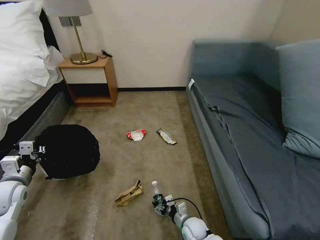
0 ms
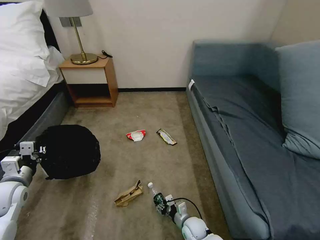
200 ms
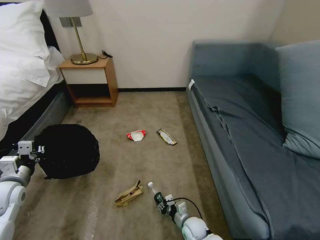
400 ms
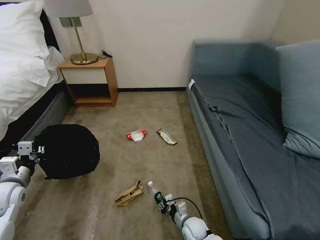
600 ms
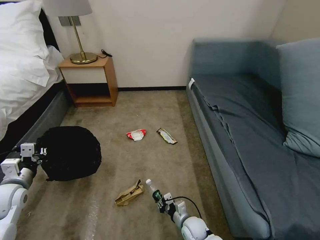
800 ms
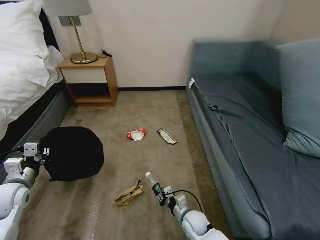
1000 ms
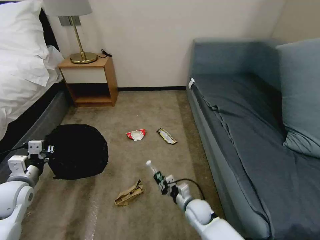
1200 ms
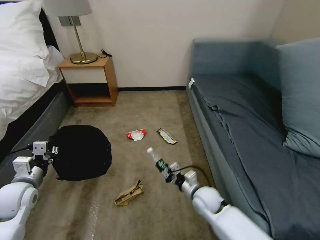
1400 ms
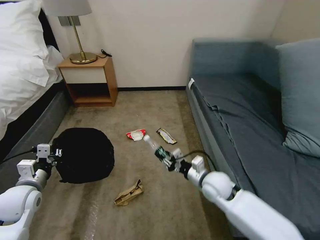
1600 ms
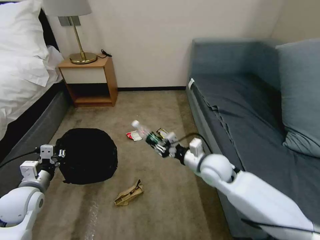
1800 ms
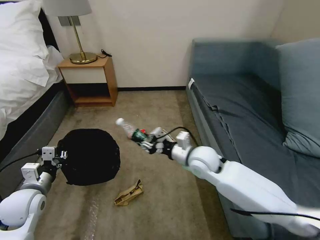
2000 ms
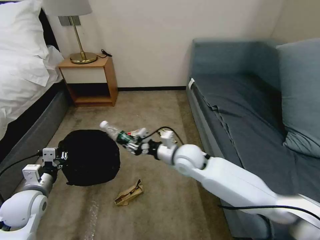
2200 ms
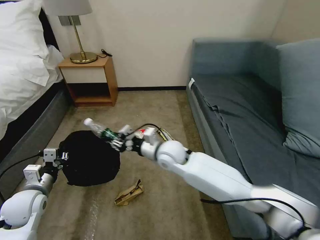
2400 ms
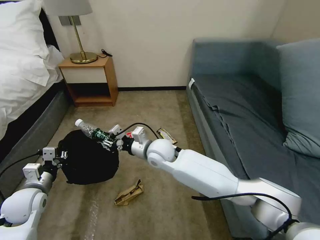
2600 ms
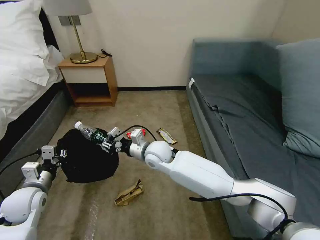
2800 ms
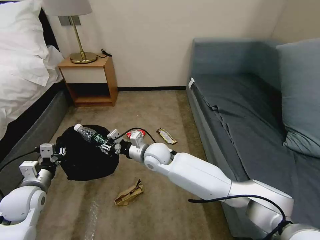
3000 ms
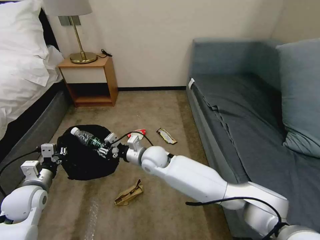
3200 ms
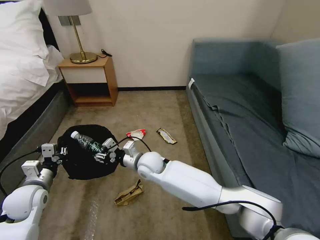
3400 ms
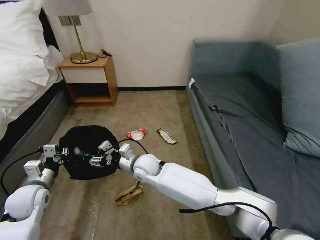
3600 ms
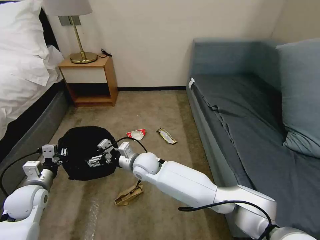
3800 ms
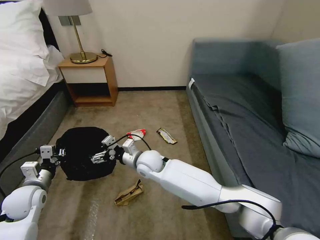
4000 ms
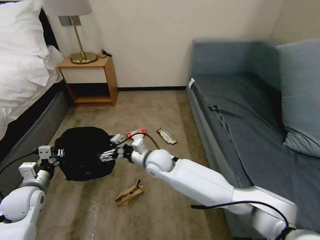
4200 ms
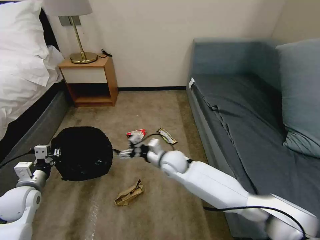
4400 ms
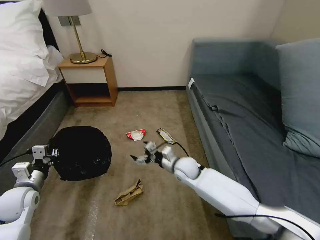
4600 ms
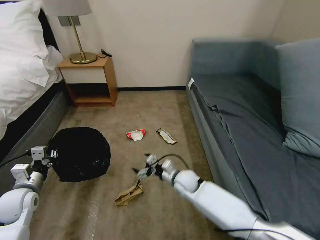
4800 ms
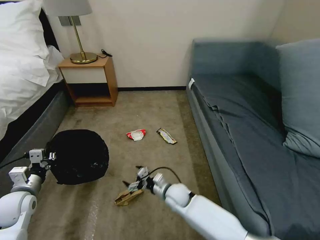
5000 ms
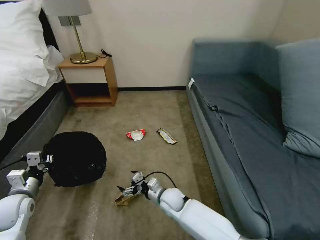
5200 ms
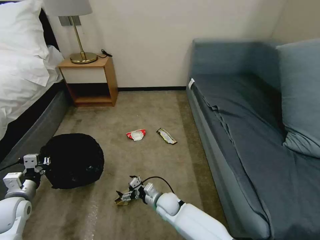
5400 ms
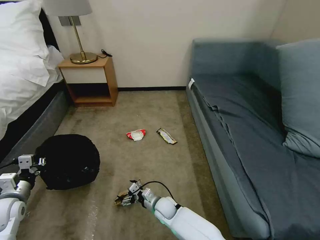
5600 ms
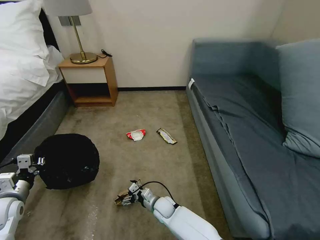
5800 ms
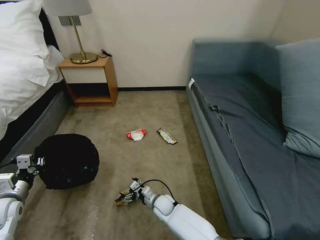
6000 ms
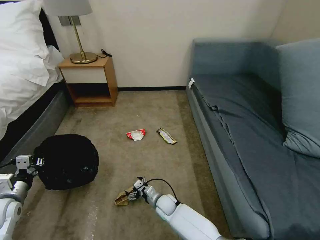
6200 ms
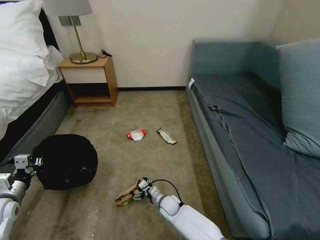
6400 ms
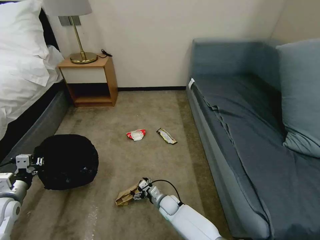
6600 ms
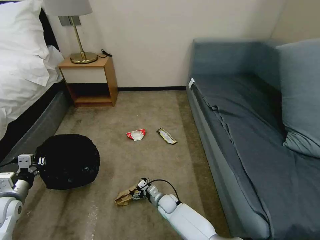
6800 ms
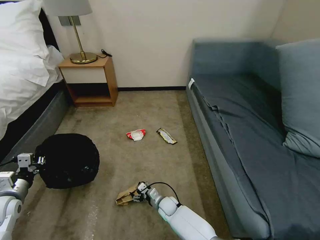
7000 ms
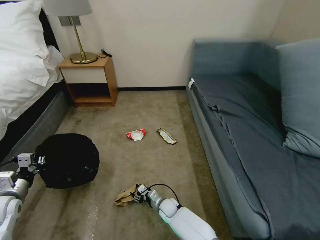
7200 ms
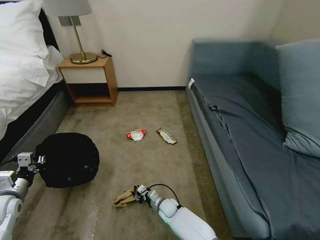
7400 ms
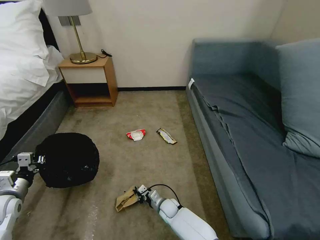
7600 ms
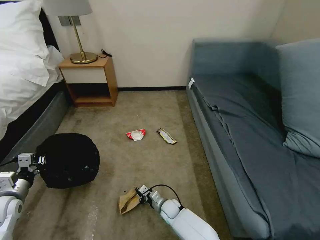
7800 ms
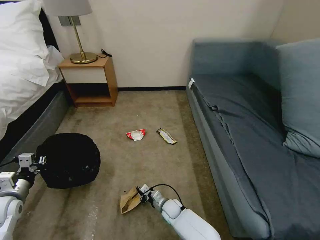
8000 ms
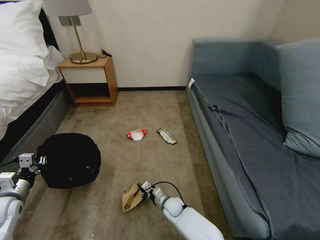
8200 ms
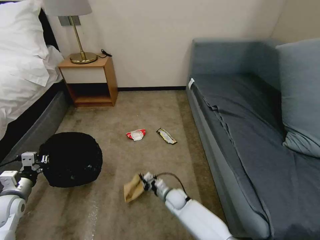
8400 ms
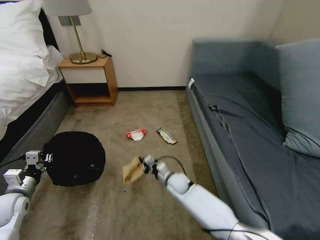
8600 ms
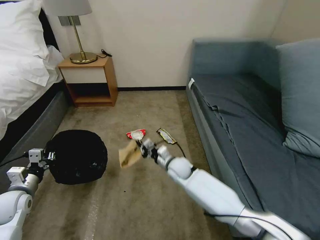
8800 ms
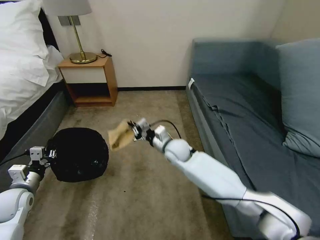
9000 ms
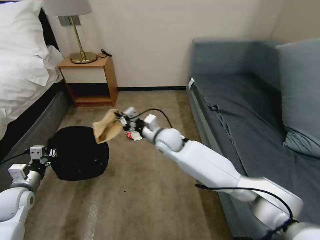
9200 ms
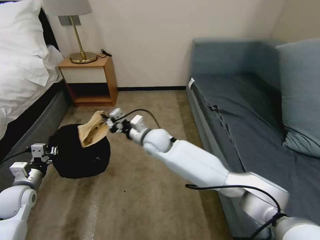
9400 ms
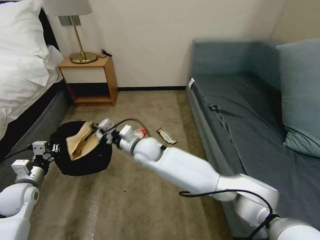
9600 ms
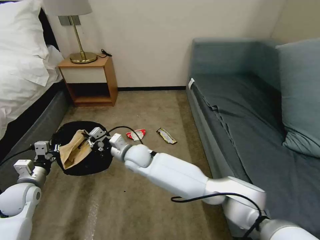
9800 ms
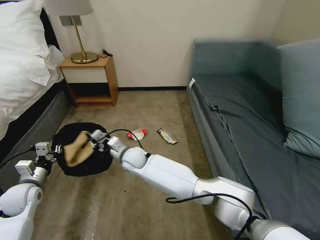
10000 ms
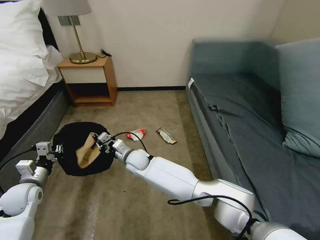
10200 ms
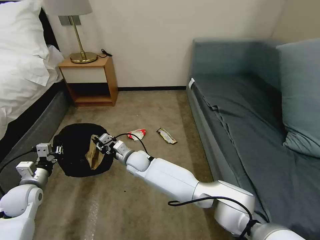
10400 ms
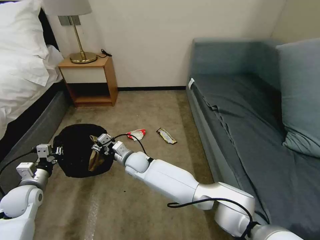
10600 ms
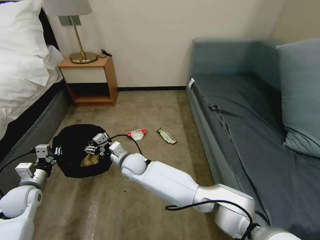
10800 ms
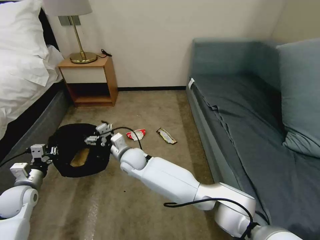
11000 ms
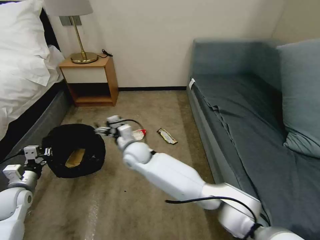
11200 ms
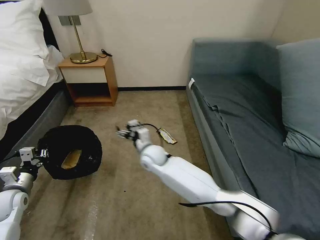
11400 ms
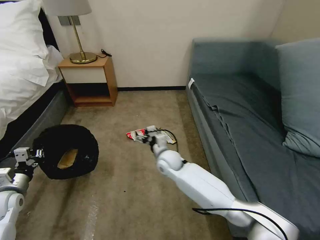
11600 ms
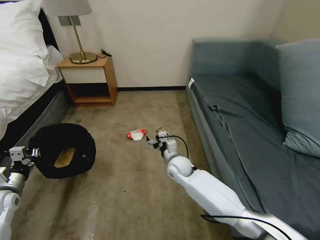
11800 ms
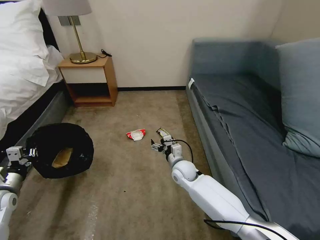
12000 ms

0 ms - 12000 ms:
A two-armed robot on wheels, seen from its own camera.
Task of the whole recording: Pick up the trash bin, then pick up the garbage on the floor and place it into the trash bin.
0 ms - 1600 ms: The left gripper heads to the right, covering about 5 cm. The right gripper goes about 25 cm upward and forward, and closes up.
1600 ms - 3000 ms: The right gripper moves to the left and forward, about 20 cm.
3000 ms - 4400 ms: The right gripper travels to the right by approximately 5 cm, and opens.
4400 ms - 6000 ms: The left gripper moves to the left, about 5 cm; the right gripper moves downward, some 25 cm.
6000 ms - 7600 ms: The right gripper closes up.
7600 ms - 9000 ms: The right gripper travels upward and forward by roughly 30 cm.
9000 ms - 10400 ms: The right gripper travels to the left by some 15 cm.
10400 ms - 12000 ms: The left gripper travels to the left by approximately 5 cm. Meanwhile the right gripper heads to the right, covering roughly 20 cm, and opens up.

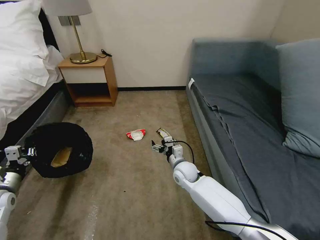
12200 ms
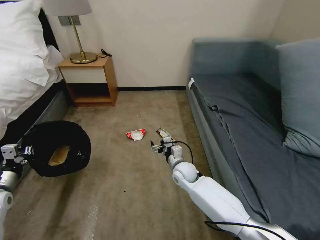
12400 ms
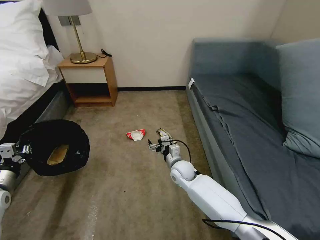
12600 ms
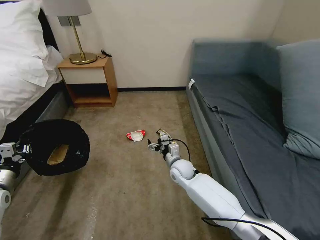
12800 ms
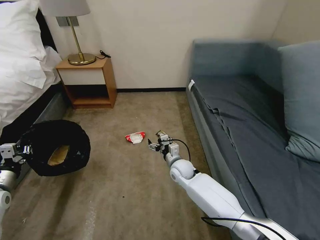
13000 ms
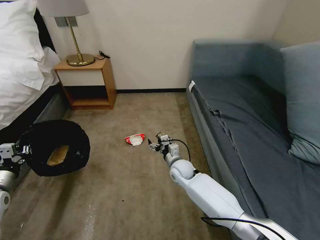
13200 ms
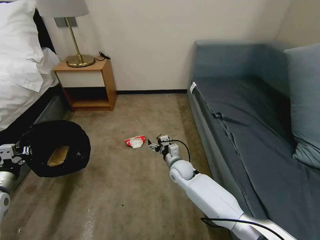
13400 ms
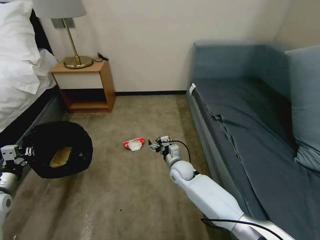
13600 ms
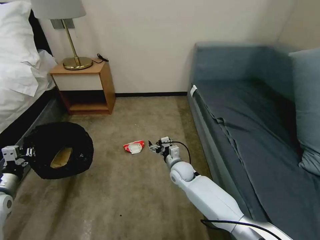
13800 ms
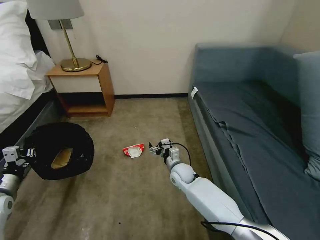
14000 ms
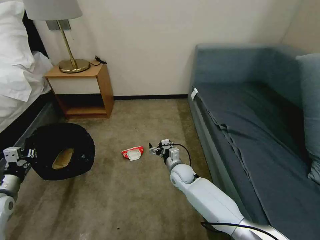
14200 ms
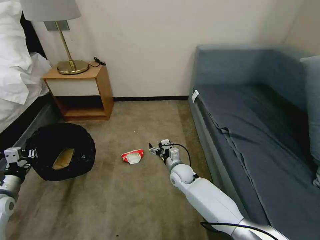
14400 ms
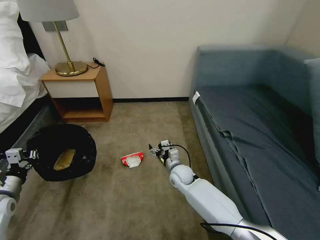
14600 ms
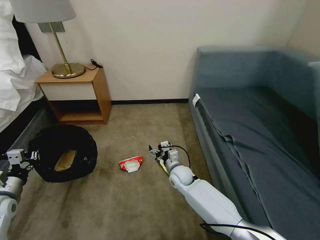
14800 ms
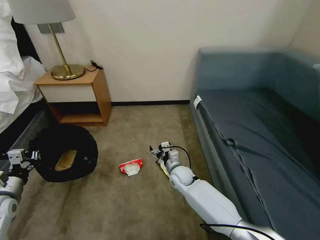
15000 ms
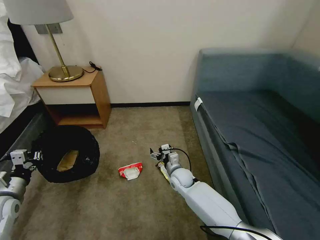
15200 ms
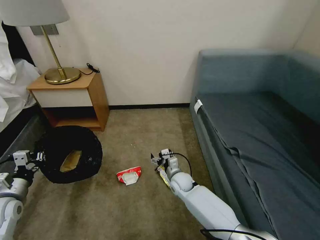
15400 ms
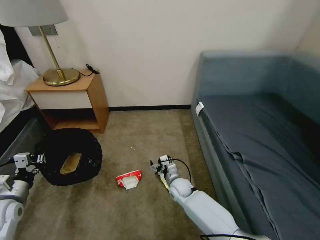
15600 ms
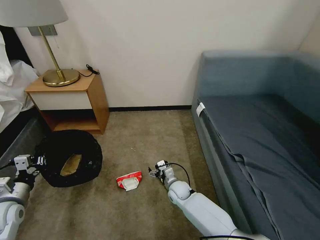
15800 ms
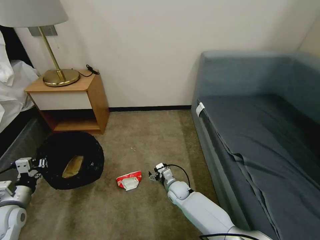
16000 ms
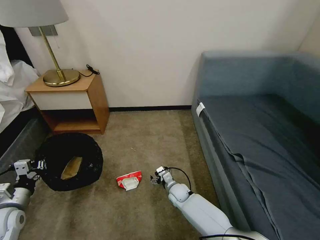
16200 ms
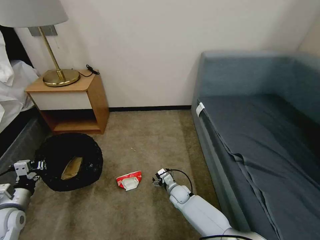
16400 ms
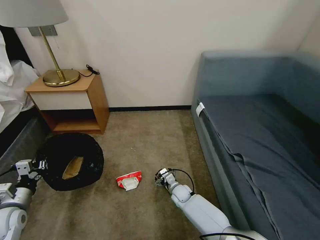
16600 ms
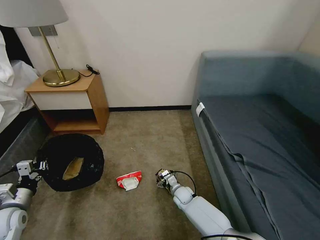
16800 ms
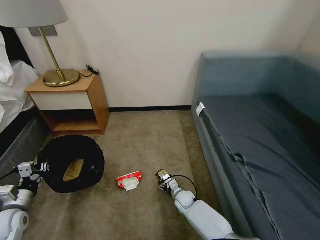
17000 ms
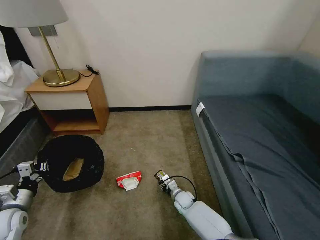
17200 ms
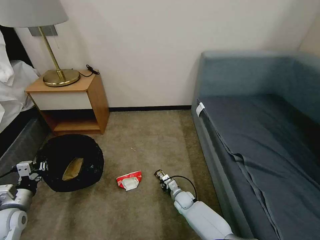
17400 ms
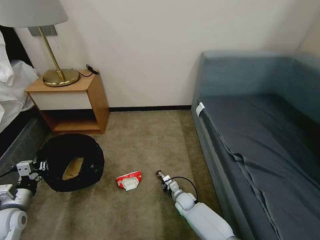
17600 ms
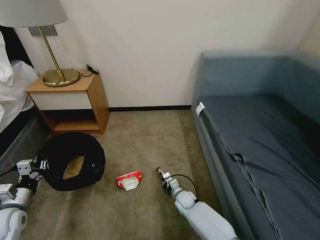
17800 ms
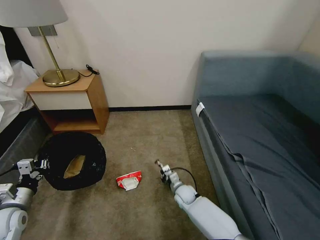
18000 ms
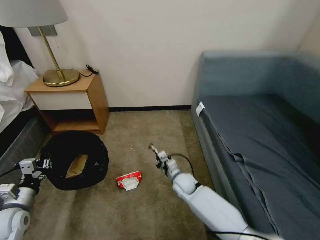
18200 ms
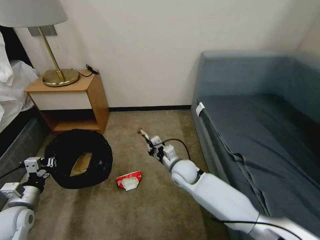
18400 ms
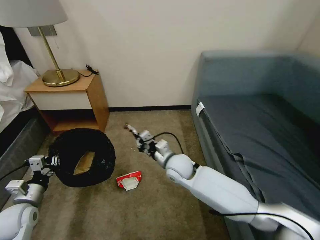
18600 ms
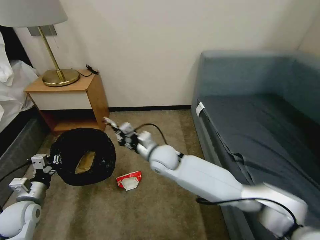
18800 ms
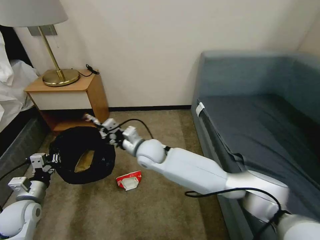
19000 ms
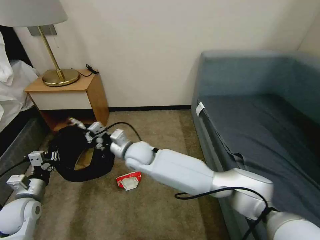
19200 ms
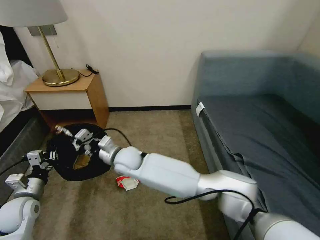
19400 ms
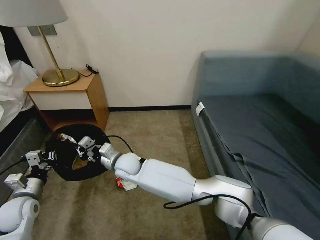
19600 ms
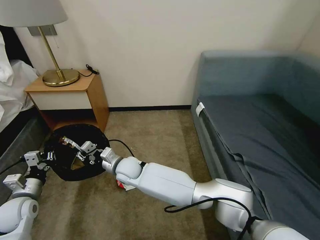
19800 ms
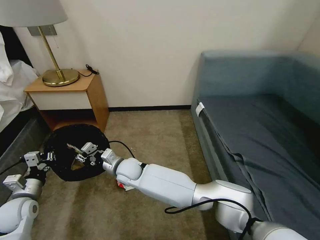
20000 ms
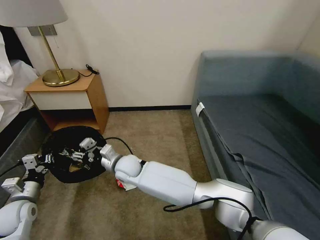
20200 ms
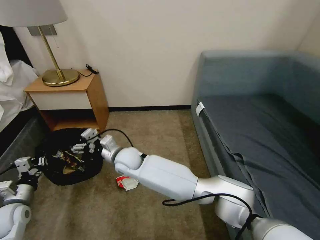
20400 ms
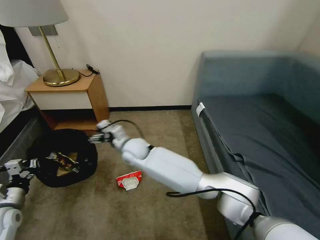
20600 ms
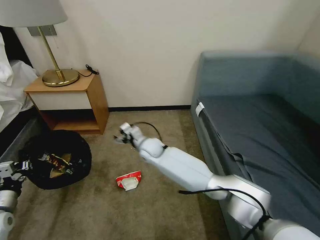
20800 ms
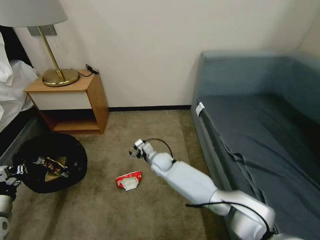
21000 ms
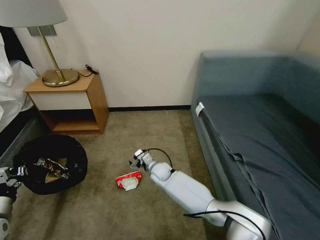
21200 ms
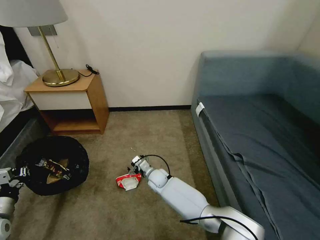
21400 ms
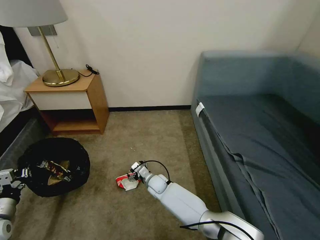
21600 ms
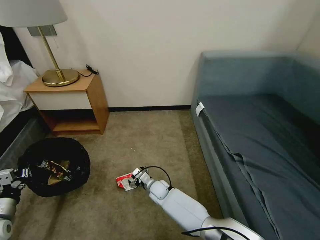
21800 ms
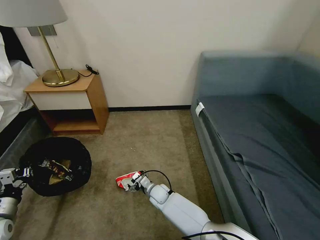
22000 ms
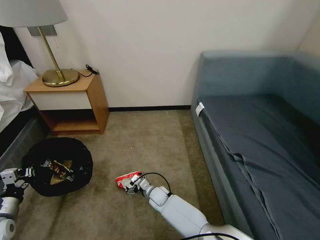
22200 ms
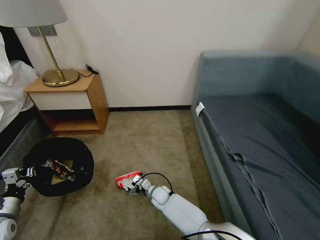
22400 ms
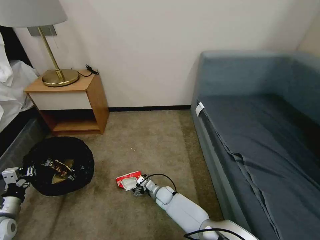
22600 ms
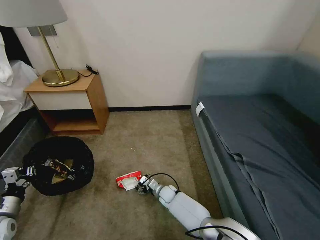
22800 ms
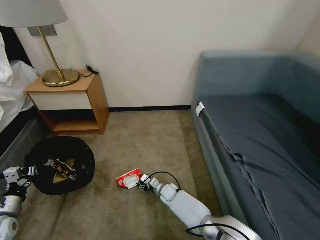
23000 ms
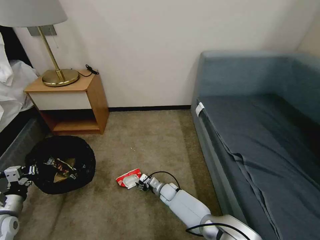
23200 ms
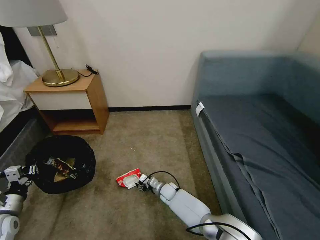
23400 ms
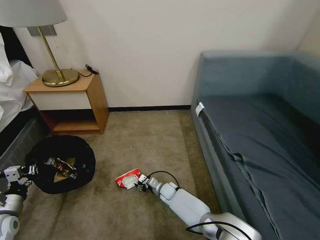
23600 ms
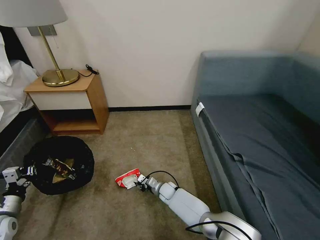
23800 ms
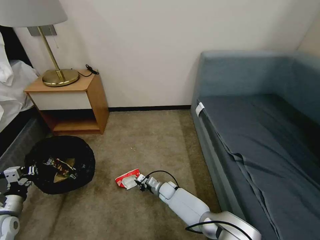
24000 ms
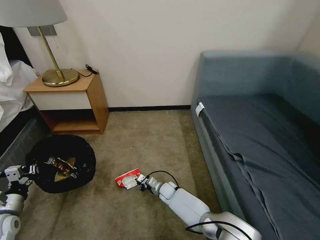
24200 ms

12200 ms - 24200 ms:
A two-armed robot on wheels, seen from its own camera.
Task of the whole recording: Pick up the trash bin, then pick up the garbage on the floor and place it into the trash bin.
15200 ms - 16600 ms: The right gripper goes about 10 cm downward.
16600 ms - 18200 ms: The right gripper is displaced upward by some 10 cm, and closes up.
18200 ms - 19800 ms: The right gripper goes about 25 cm to the left and upward.
19800 ms - 21200 ms: The left gripper shifts about 10 cm to the left and backward. The right gripper moves to the right and downward, some 15 cm, and opens up.
21200 ms - 22600 ms: The right gripper shifts roughly 15 cm downward and backward.
22600 ms - 24200 ms: The right gripper closes its fingers.
